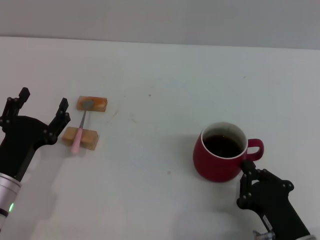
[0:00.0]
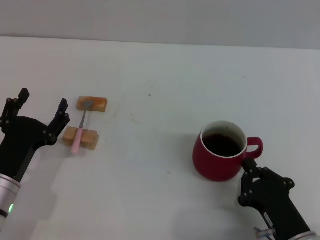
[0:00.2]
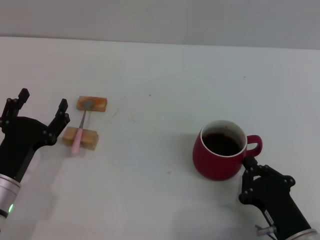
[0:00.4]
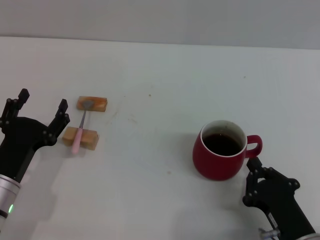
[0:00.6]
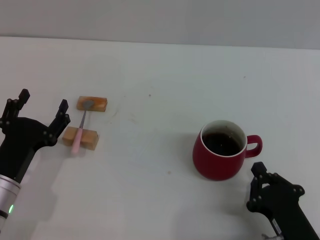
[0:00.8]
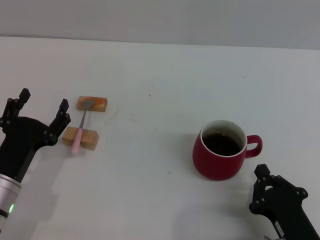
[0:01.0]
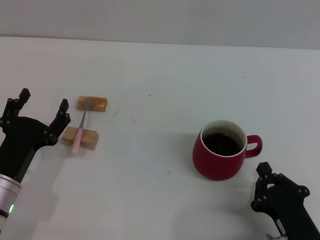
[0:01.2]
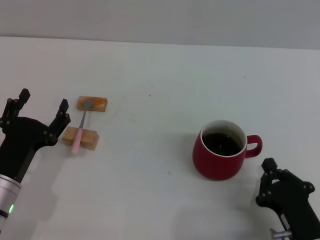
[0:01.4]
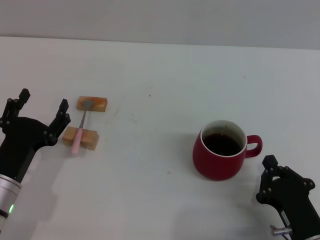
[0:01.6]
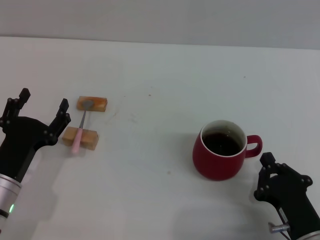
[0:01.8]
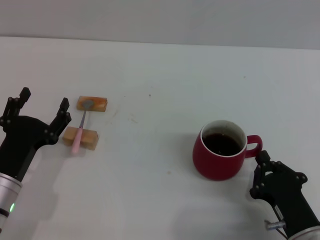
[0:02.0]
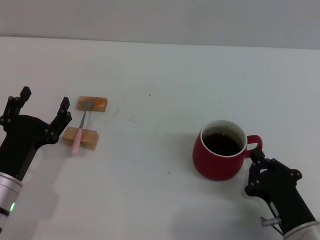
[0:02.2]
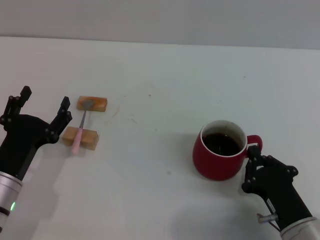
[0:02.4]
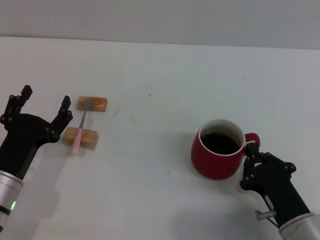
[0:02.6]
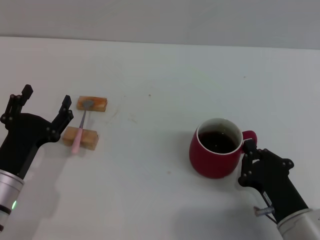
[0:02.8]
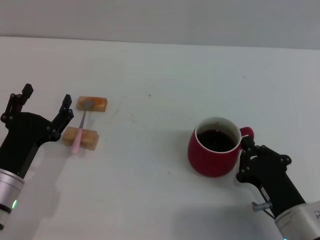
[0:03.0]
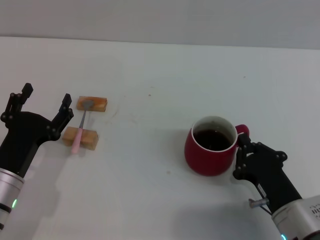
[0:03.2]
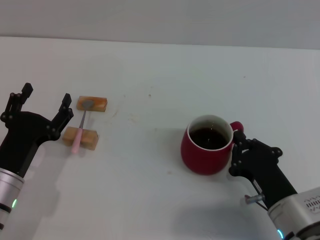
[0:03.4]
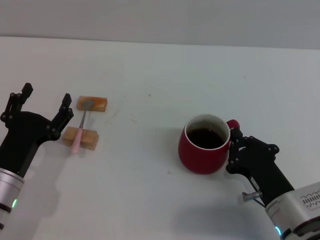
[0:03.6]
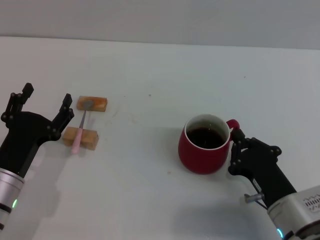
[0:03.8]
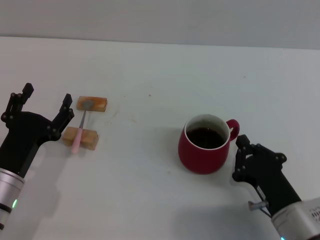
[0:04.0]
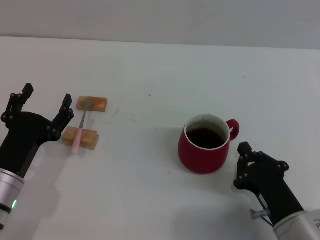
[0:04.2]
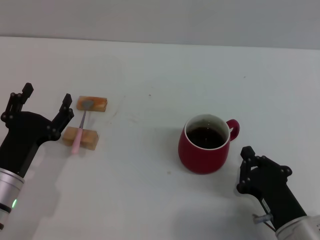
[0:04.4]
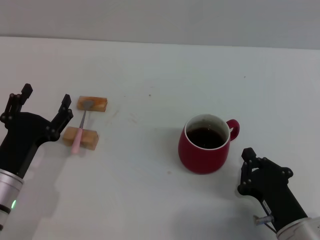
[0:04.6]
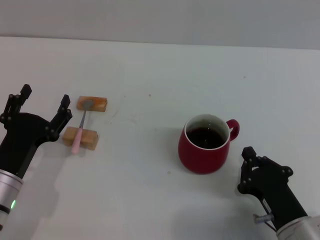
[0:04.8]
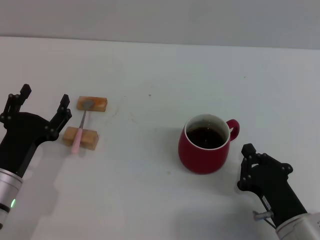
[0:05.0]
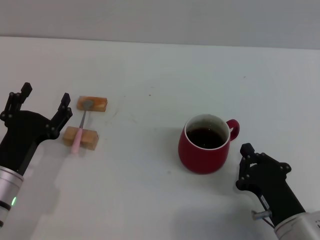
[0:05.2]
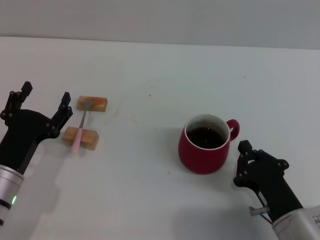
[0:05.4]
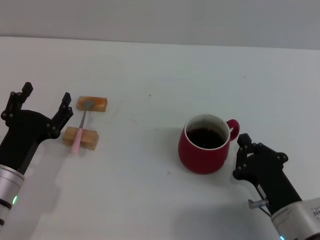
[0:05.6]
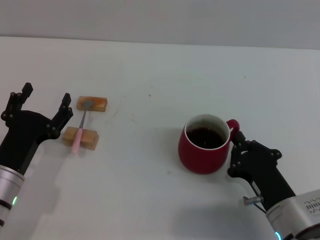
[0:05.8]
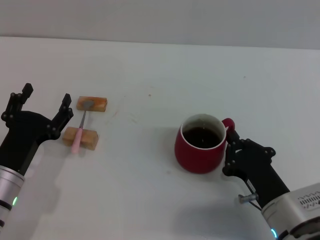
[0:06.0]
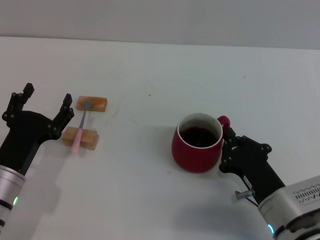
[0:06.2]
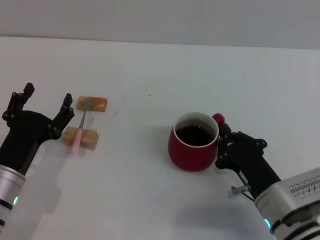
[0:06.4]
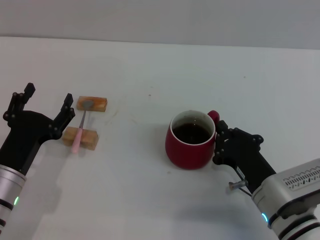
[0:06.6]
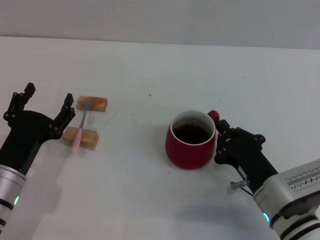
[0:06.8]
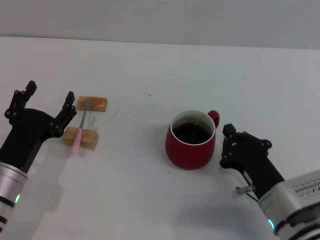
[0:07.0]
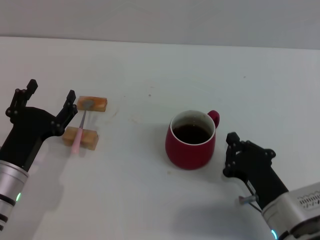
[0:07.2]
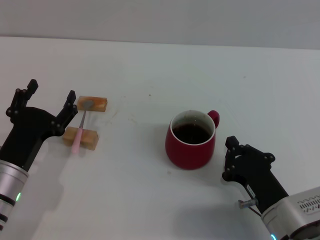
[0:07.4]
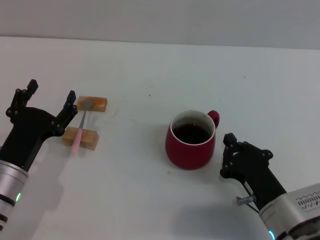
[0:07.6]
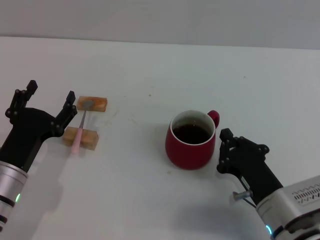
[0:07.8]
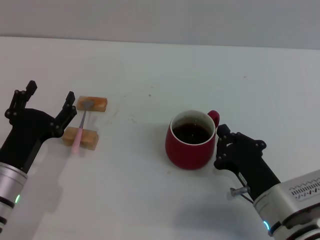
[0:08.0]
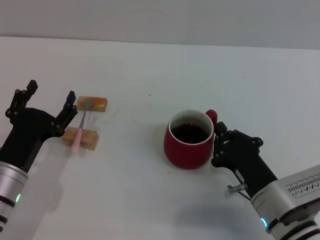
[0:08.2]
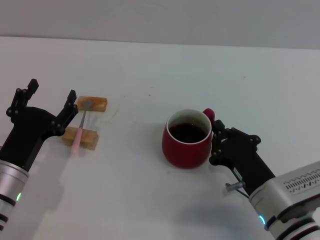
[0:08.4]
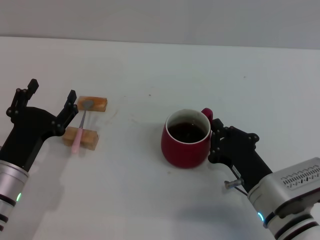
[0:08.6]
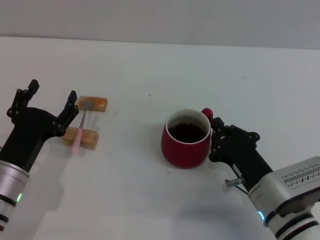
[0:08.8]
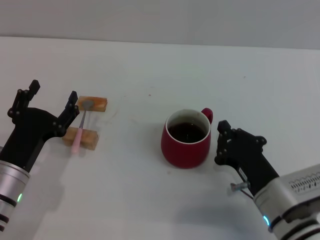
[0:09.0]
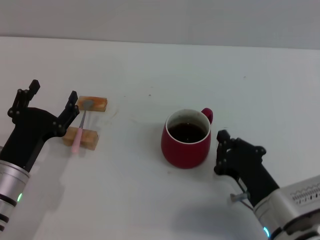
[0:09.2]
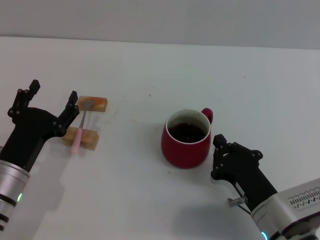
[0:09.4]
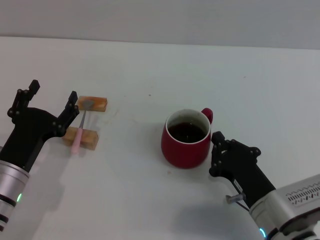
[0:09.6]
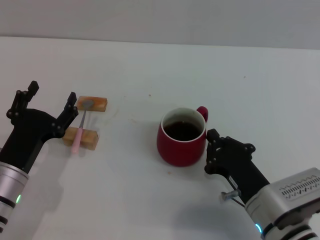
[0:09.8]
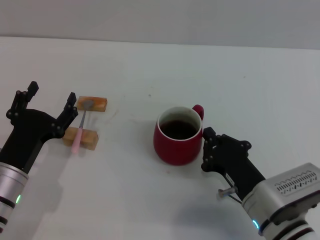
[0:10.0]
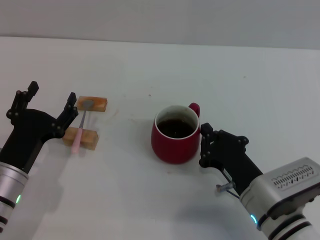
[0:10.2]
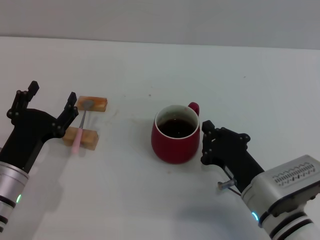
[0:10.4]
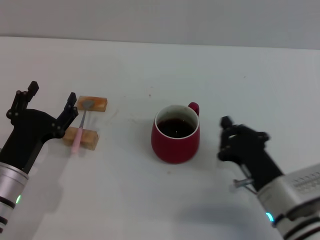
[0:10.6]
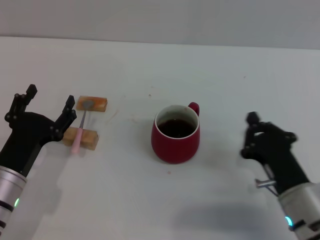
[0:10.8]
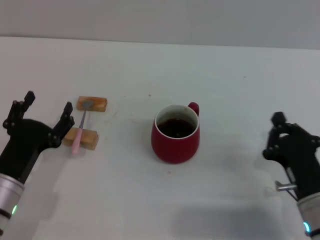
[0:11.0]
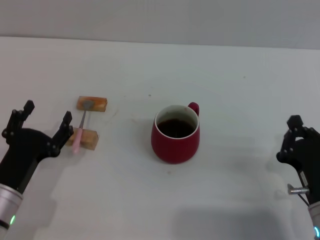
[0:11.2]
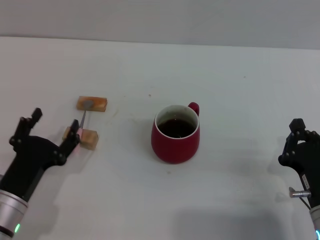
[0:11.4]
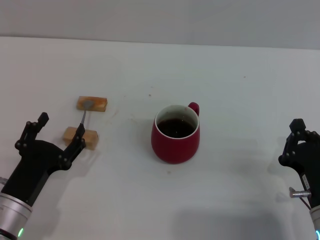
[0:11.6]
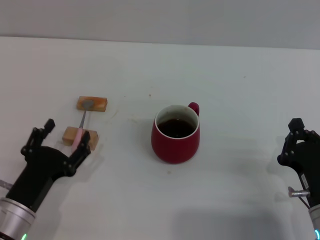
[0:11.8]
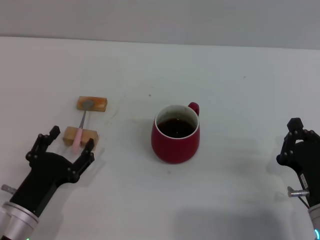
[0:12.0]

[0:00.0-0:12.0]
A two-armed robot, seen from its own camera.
Task of the whole recording: Move the red cup to the center, lift the pink spoon, stir it three times in the cup, and put the spoon into the cup.
Step, 0:00.0 to 0:10.6: Move the cup with coffee to the center of view with the right gripper.
0:00.0 to 0:06.0: The grippers make only small movements.
0:06.0 to 0:10.4: There are only small adjustments of the grippers.
0:10.4 to 0:12.0: The left gripper moves approximately 5 cm. The right gripper is displaced to the right by approximately 5 cm.

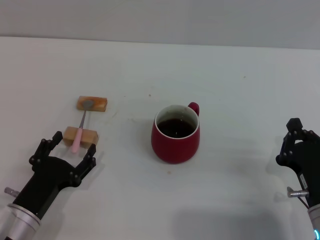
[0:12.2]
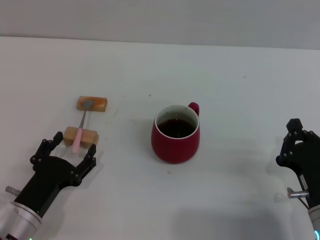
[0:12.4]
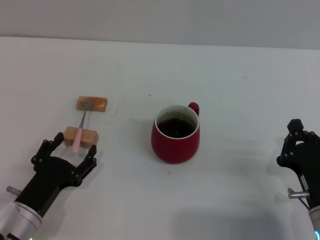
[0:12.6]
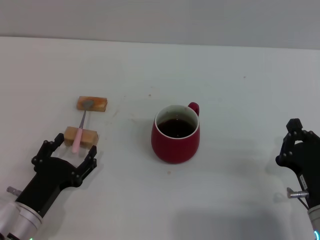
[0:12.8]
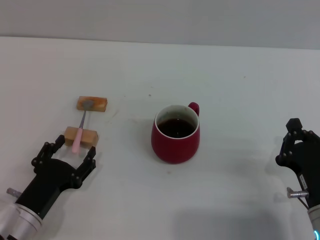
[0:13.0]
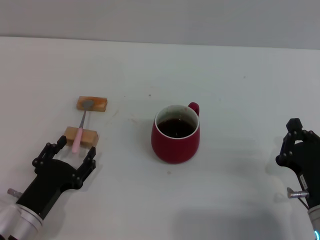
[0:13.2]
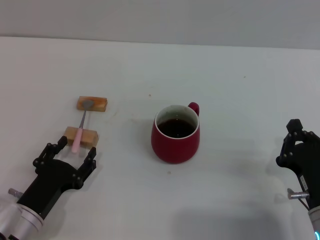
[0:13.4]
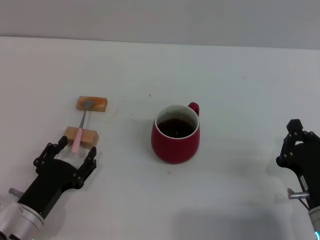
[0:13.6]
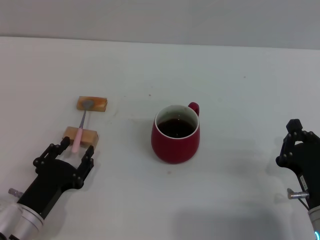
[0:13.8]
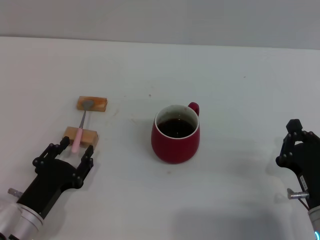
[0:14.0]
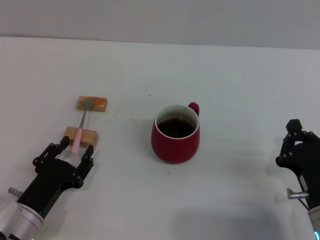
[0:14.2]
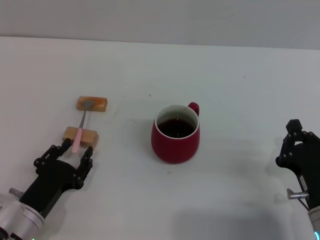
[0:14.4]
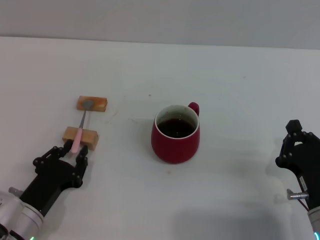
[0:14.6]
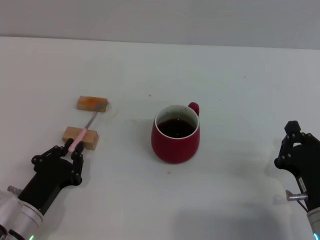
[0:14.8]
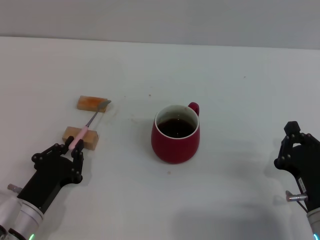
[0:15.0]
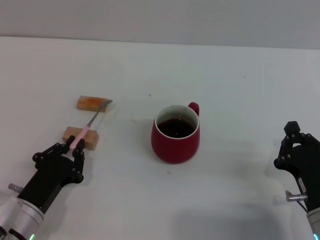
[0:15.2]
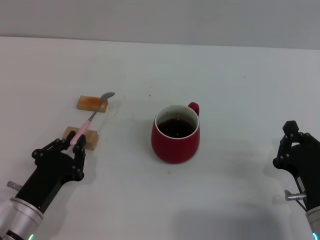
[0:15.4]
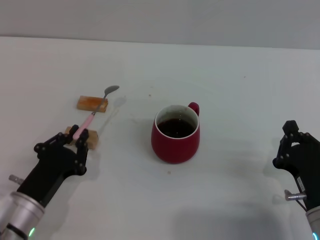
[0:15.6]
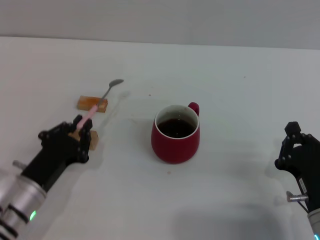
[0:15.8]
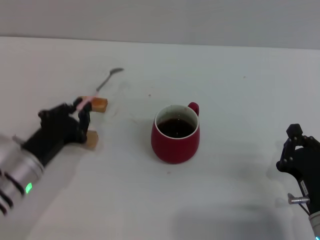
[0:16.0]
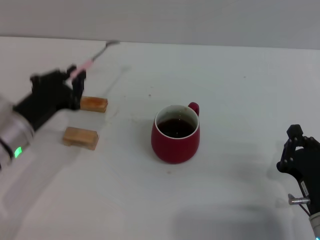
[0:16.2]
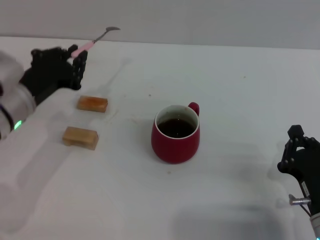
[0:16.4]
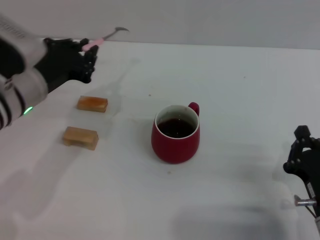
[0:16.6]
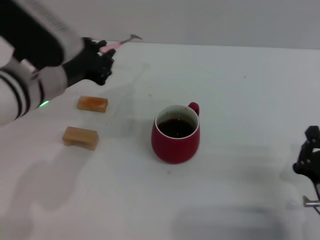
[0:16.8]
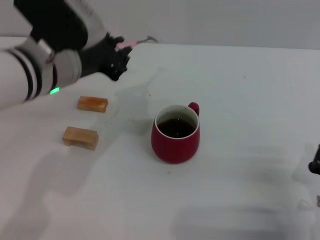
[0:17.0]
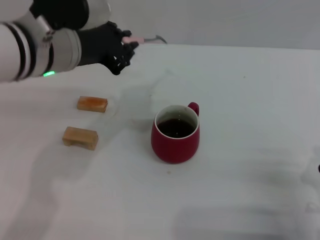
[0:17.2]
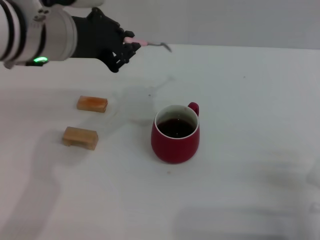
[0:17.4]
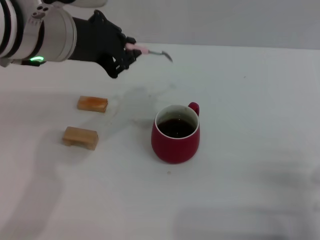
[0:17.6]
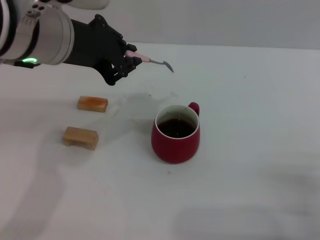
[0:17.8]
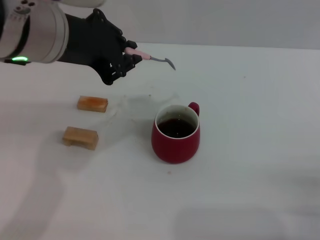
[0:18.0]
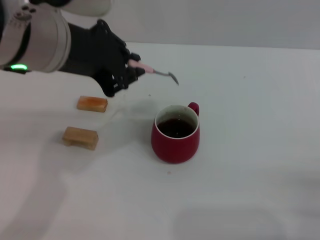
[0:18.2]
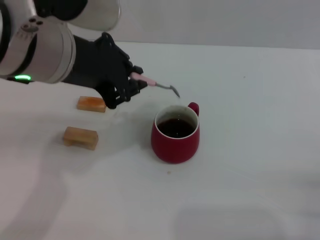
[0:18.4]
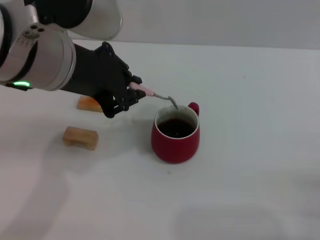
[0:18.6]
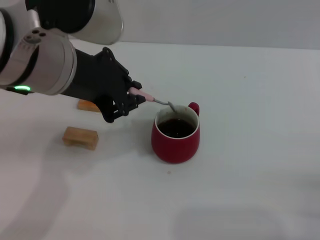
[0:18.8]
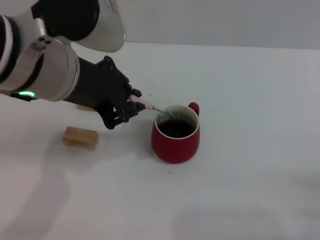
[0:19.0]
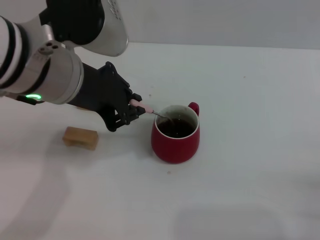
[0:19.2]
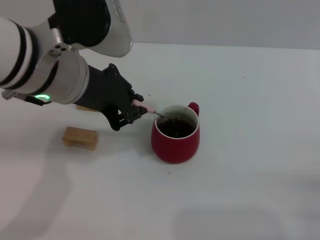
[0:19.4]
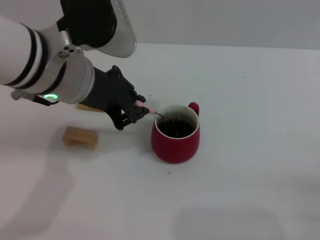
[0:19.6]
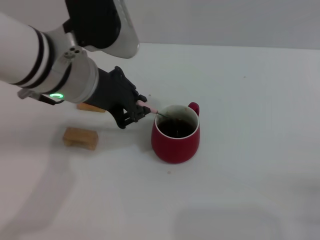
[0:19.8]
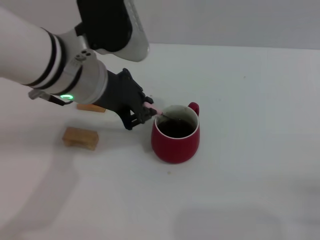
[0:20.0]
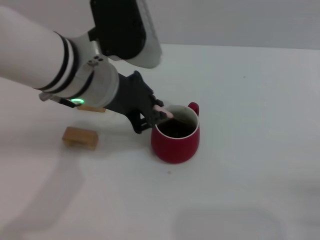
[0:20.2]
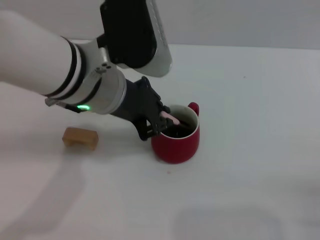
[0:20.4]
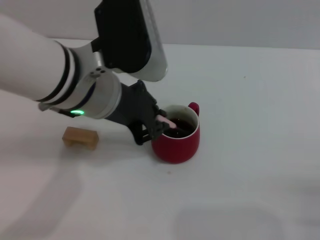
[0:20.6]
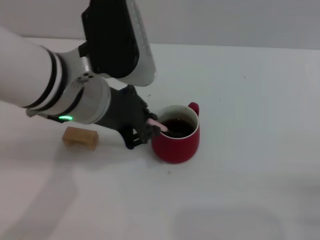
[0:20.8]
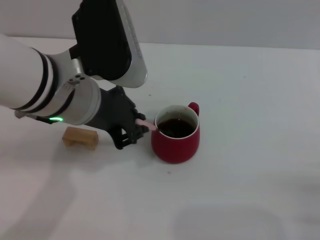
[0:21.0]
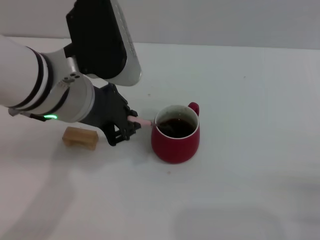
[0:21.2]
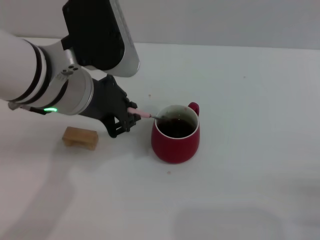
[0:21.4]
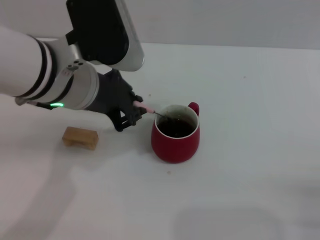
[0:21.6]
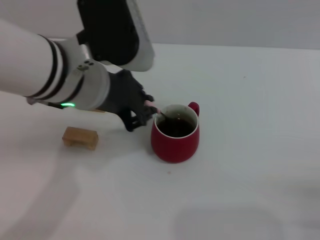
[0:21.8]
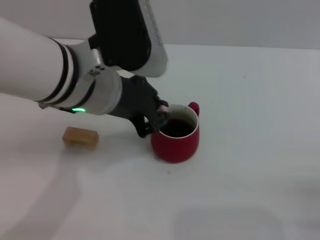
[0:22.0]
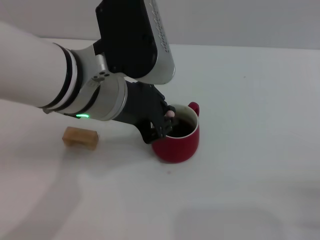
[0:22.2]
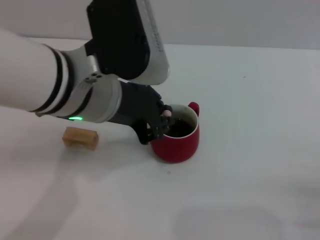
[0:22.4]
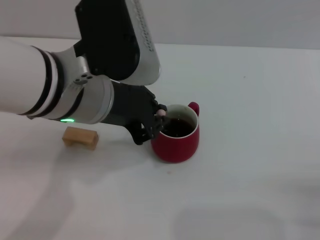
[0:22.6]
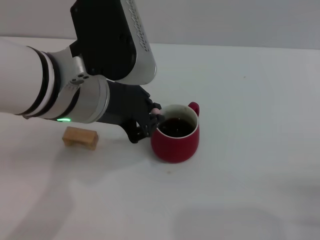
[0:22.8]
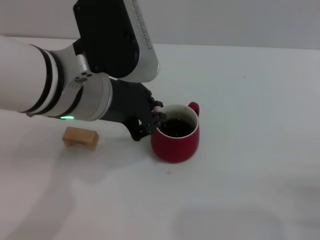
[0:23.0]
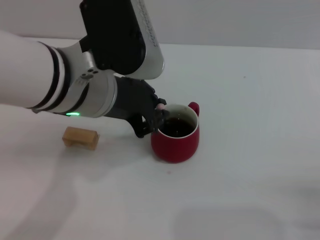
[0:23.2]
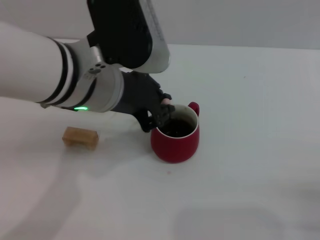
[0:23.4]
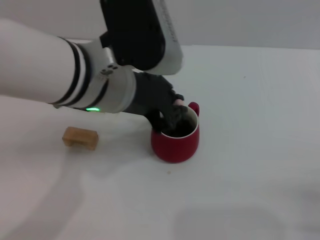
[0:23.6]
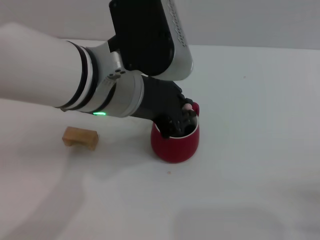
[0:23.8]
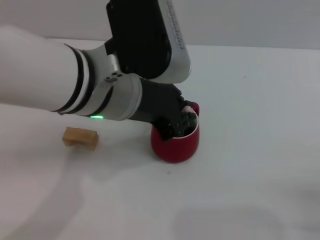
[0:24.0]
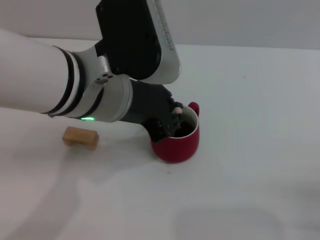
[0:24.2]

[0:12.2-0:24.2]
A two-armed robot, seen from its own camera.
Task of the whole recording: Move the red cup to the center, lift the pink spoon, stir it three times in the cup, and put the spoon into the cup.
Step, 0:12.2 to 0:15.8: Pick up the spoon with the left gripper.
0:12.2 to 0:13.8: Neither gripper changes place.
0:13.8 to 0:15.2: The left gripper closes its fingers.
0:15.2 to 0:16.6: The left gripper moves upward and forward, approximately 20 cm.
0:16.6 to 0:18.2: The left gripper is displaced upward and to the right by some 15 cm. Meanwhile the right gripper goes some 5 cm to the right.
0:18.2 to 0:19.8: The left gripper goes roughly 5 cm downward.
0:19.8 to 0:24.2: The grippers move only a little.
